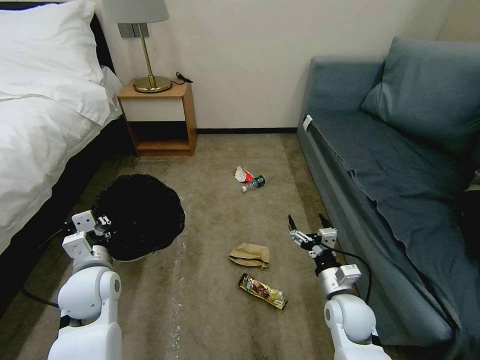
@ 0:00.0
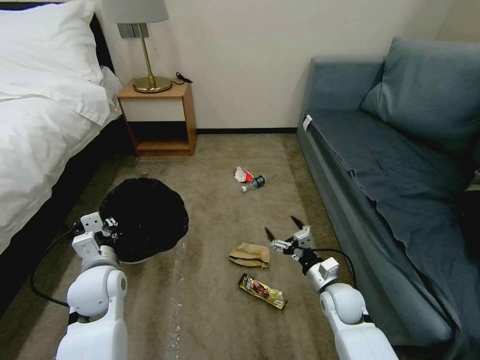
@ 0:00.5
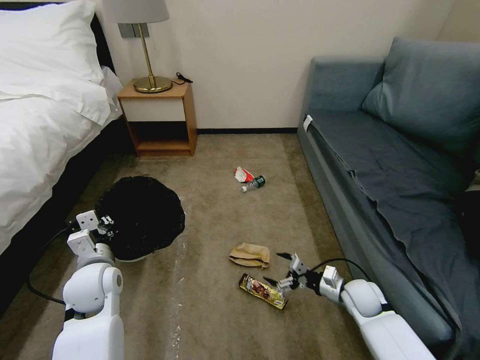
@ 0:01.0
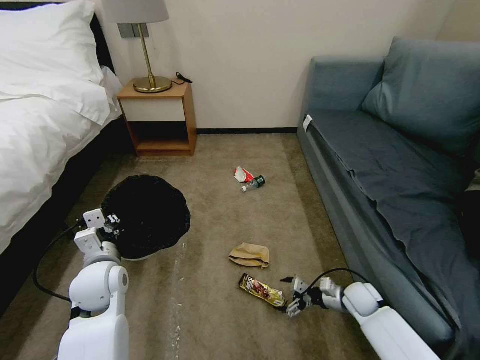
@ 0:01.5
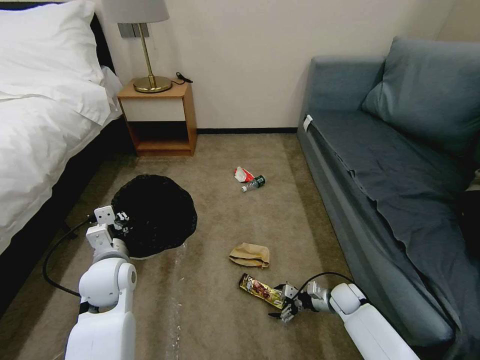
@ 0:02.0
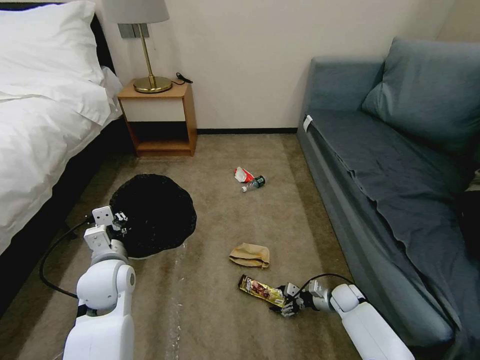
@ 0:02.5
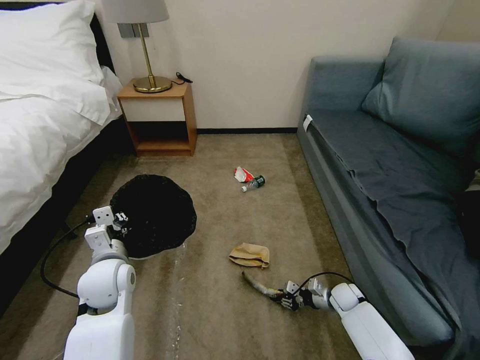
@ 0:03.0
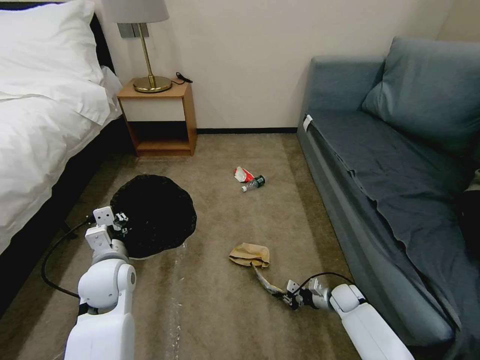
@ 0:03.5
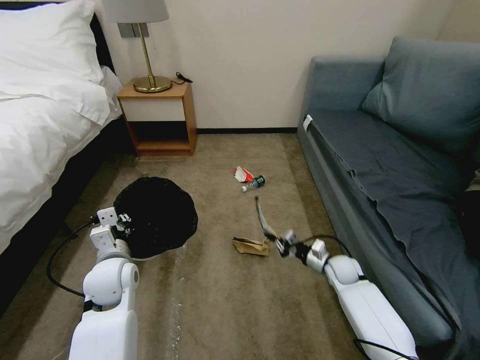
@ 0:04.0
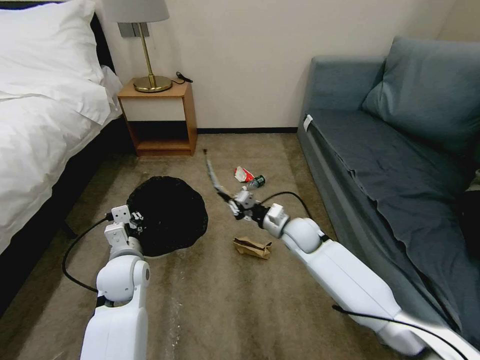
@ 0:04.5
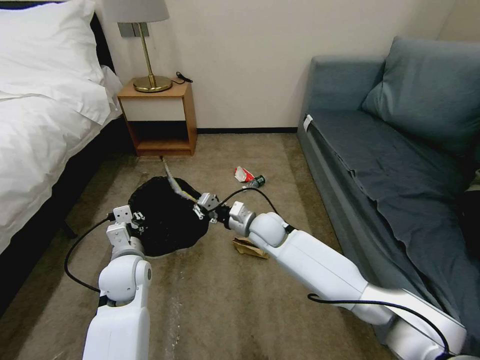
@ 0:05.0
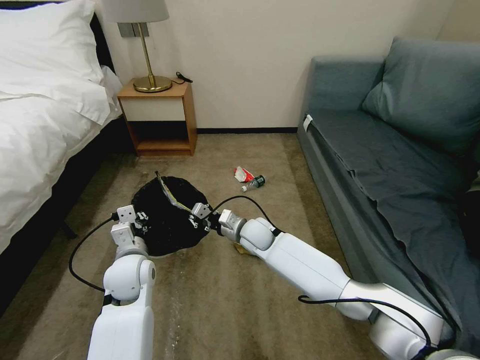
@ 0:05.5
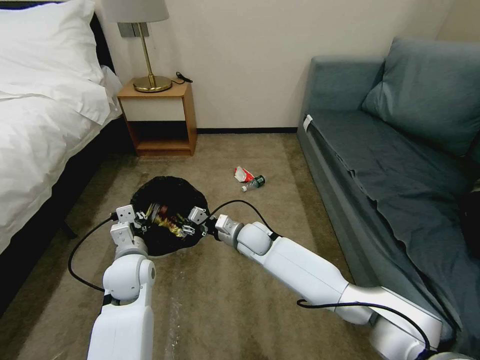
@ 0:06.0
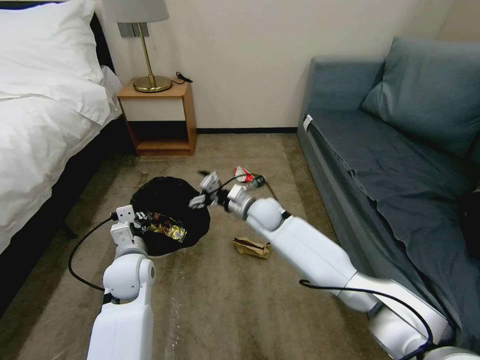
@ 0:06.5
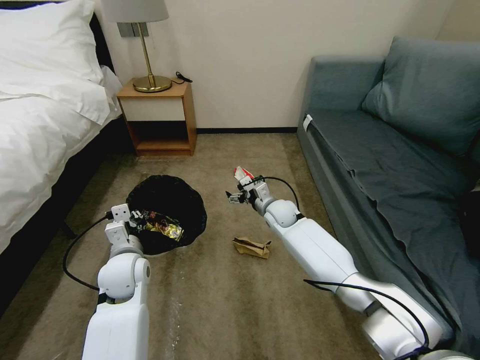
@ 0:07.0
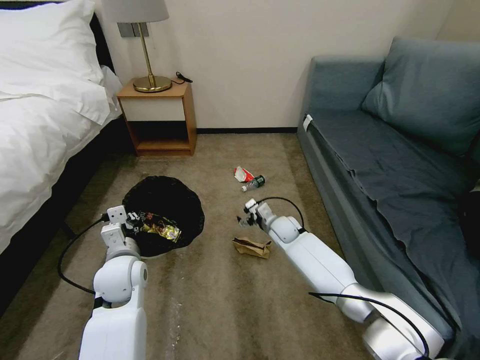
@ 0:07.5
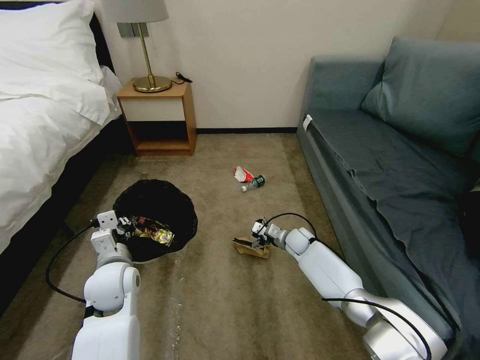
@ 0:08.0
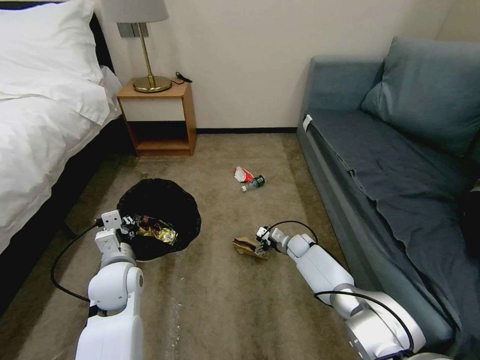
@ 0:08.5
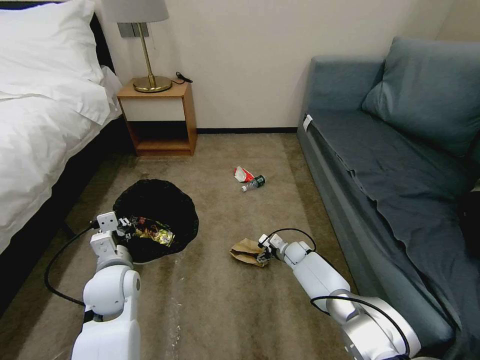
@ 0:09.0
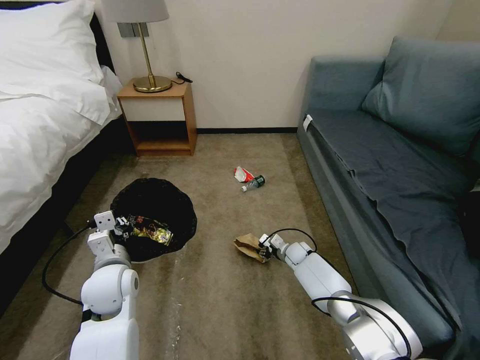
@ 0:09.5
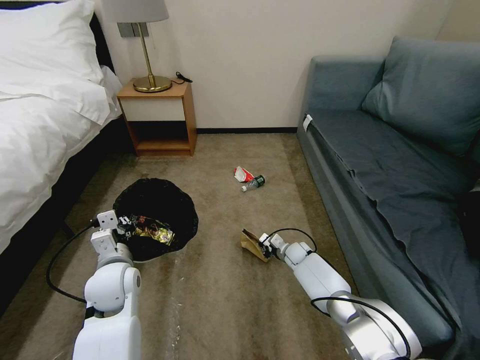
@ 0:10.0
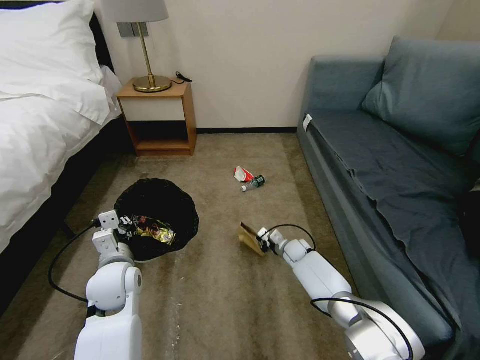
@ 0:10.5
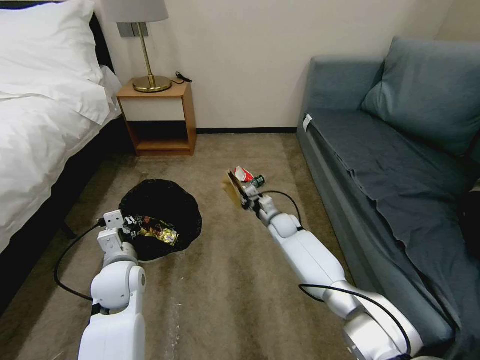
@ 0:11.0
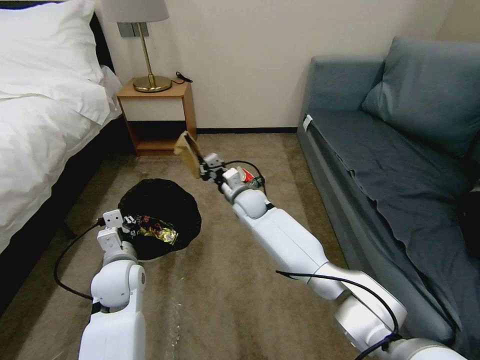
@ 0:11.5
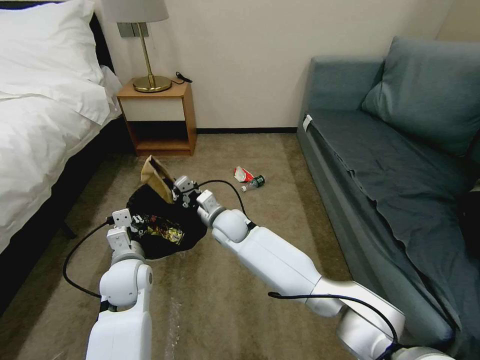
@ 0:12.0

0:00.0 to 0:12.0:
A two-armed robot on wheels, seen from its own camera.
Task of the whole recording: Pick up the trash bin, then pick up the garbage on the floor and place it into the trash bin.
0:00.0 to 0:02.0: The right gripper shifts some 20 cm downward, forward and to the right.
0:02.0 to 0:04.0: The right gripper heads upward and forward, covering roughly 10 cm, and closes up.
0:04.0 to 0:06.0: The right gripper goes roughly 25 cm to the left, and opens.
0:06.0 to 0:08.0: The right gripper travels to the right and downward by some 20 cm, and opens its fingers.
0:08.0 to 0:10.0: The right gripper heads downward, covering roughly 5 cm, and closes its fingers.
0:10.0 to 0:12.0: The right gripper travels to the left and upward by roughly 30 cm.

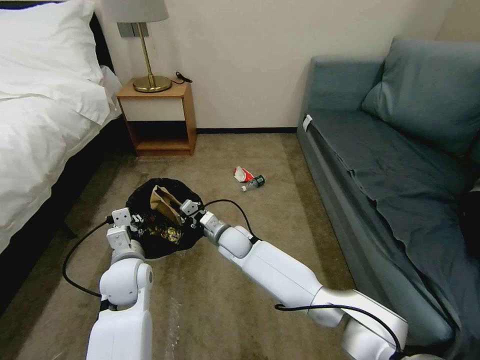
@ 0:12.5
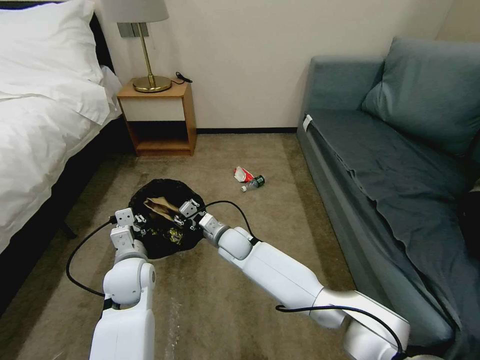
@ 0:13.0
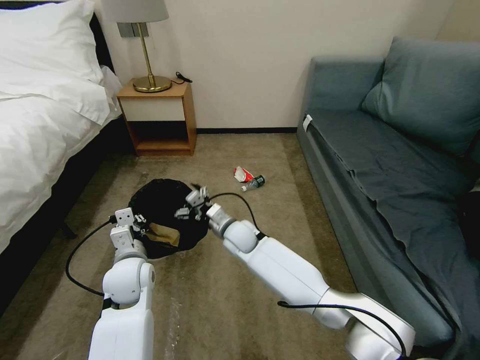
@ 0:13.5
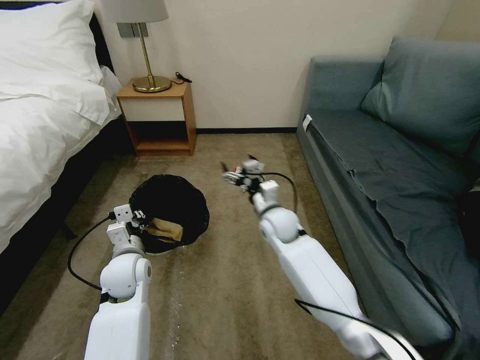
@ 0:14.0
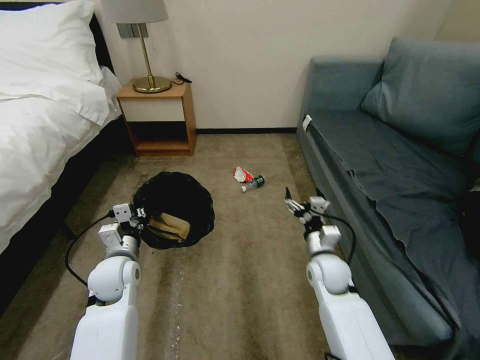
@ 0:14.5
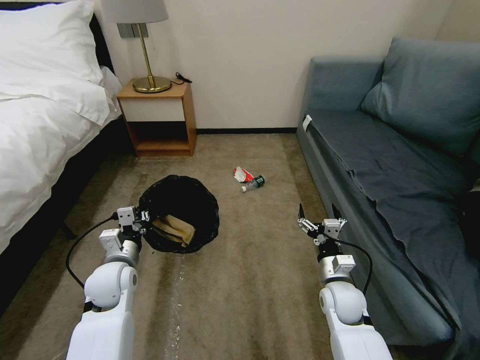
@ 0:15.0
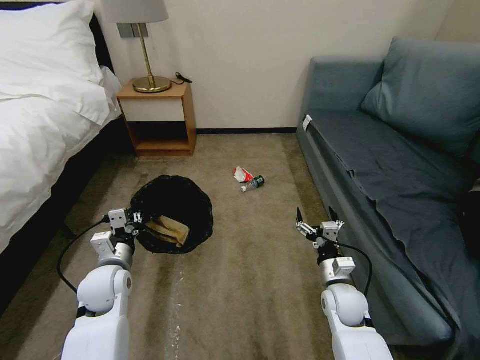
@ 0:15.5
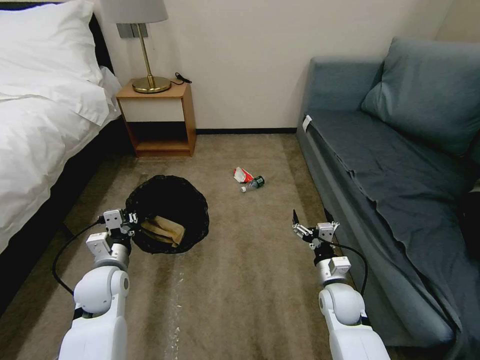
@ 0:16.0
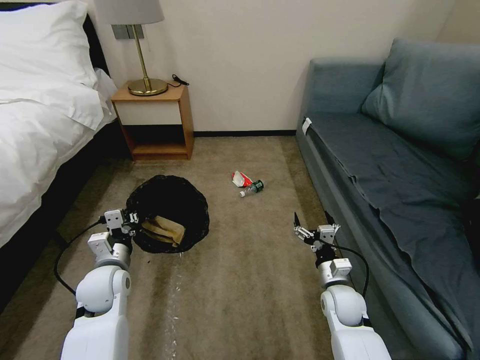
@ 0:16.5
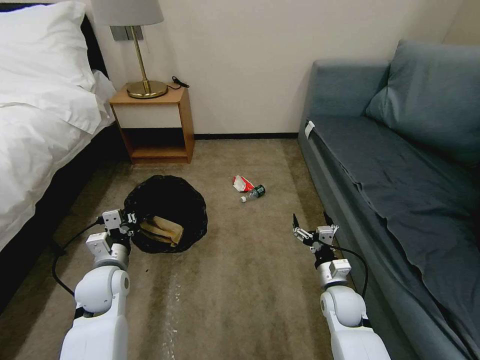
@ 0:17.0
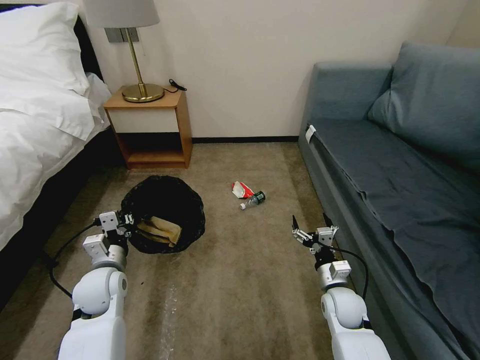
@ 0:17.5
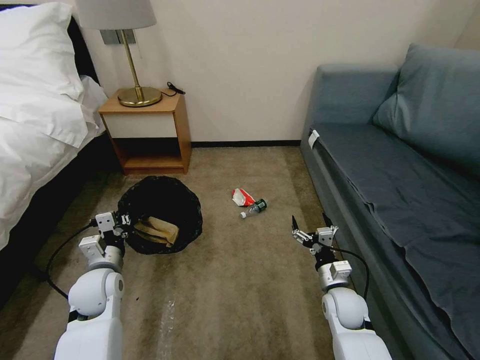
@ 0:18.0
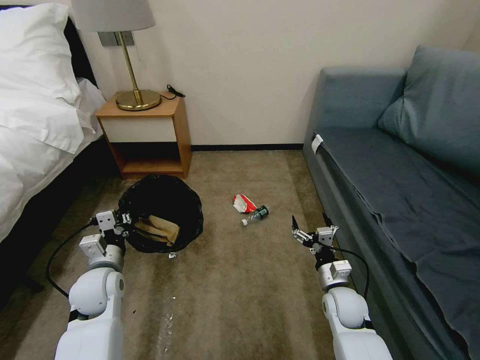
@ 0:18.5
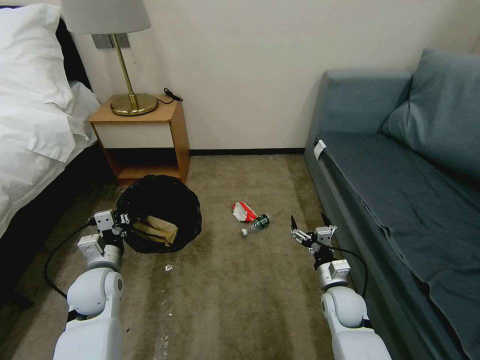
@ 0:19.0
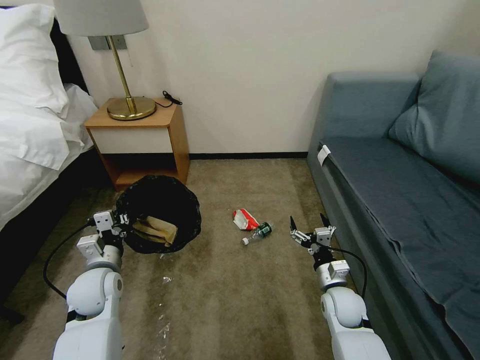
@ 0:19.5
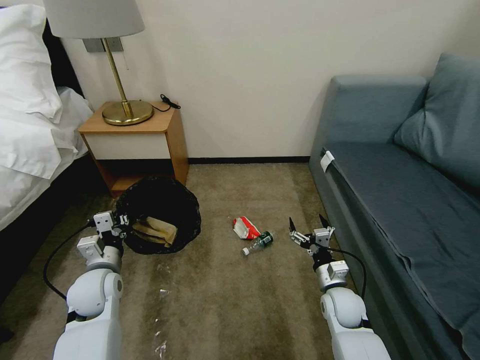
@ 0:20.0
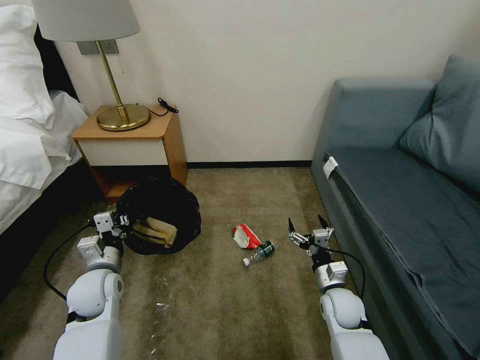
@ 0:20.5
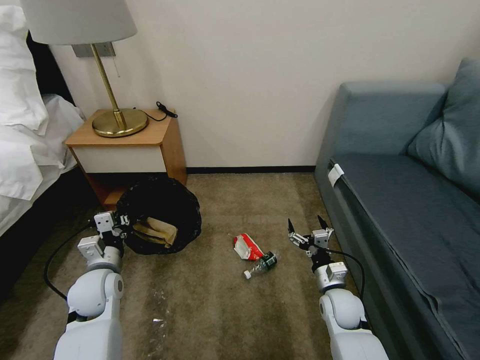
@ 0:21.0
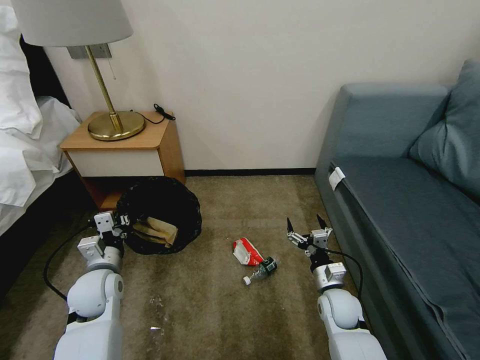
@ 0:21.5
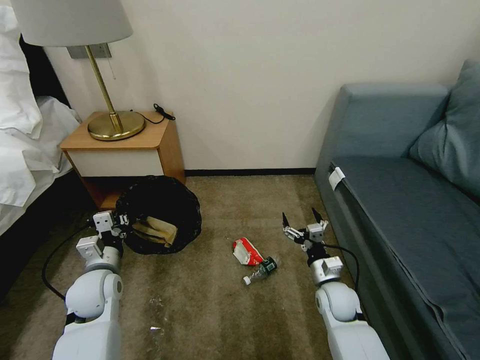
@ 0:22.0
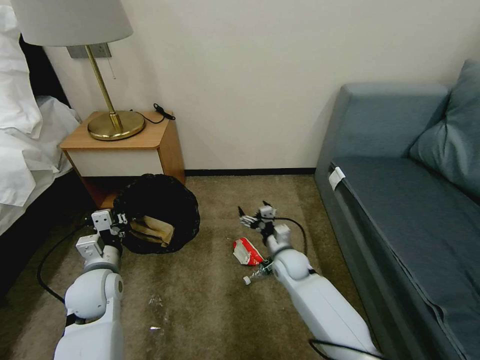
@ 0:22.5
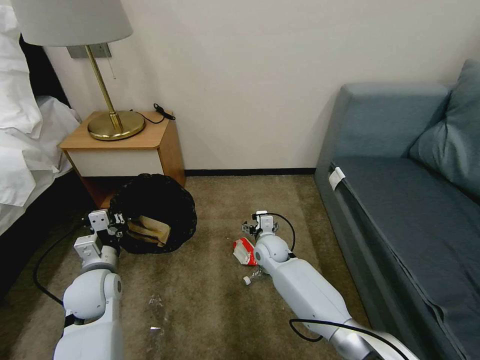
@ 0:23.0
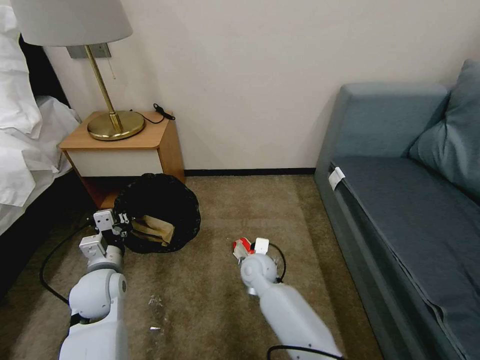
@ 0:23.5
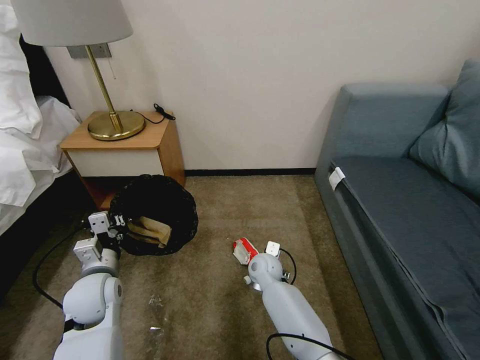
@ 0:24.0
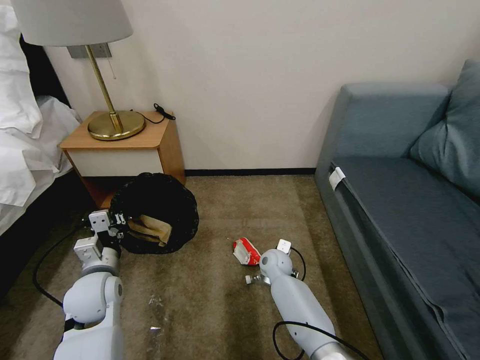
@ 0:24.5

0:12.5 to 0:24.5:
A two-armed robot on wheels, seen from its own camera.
Task of the whole recording: Pick up the trash bin, then pick up the garbage on the floor and place it into the trash bin.
0:12.5 to 0:14.5: The right gripper goes some 25 cm to the right and backward, and opens up.
0:14.5 to 0:16.5: The right gripper moves some 5 cm.
0:20.5 to 0:22.5: The right gripper is displaced to the left and forward by about 15 cm.
0:22.5 to 0:24.5: The right gripper goes to the left and returns, about 10 cm each way.

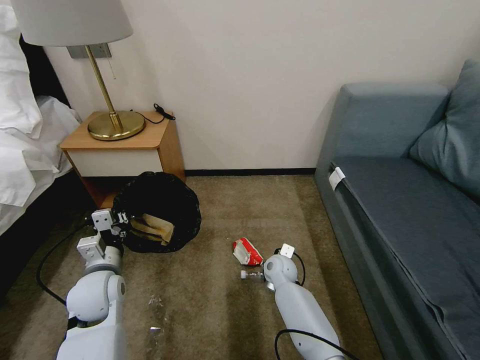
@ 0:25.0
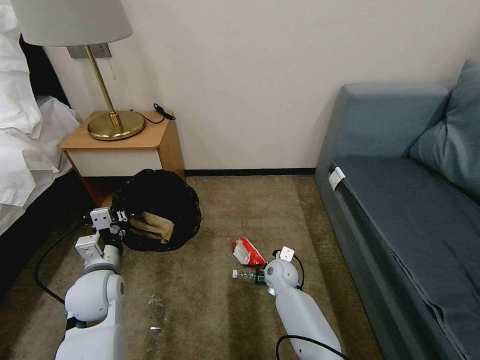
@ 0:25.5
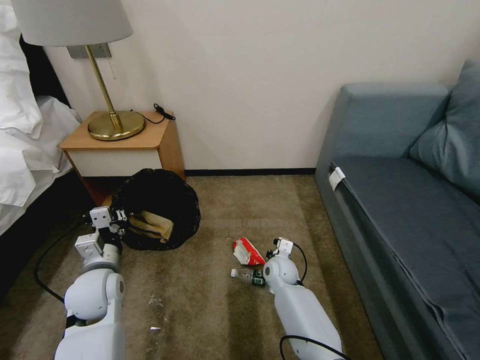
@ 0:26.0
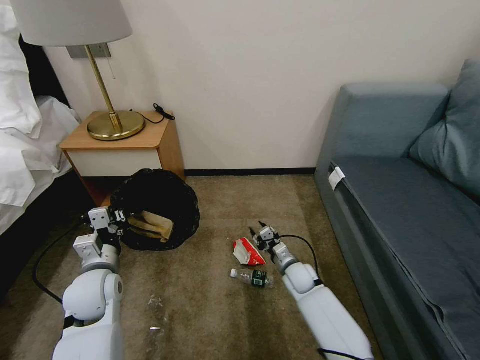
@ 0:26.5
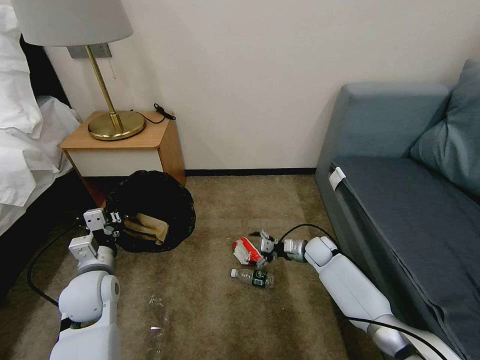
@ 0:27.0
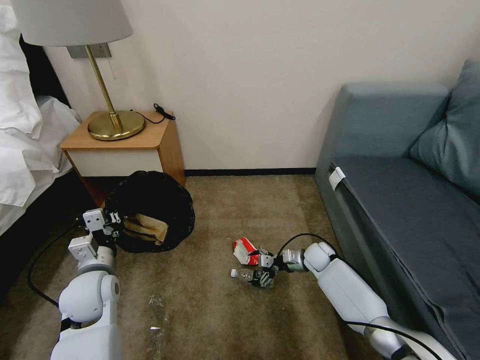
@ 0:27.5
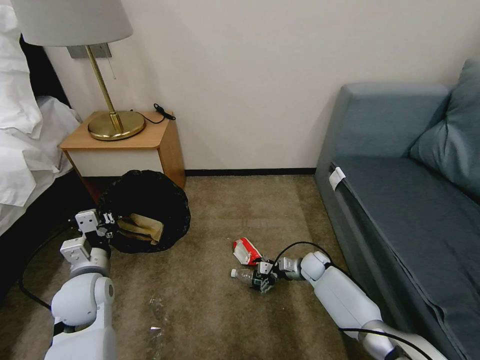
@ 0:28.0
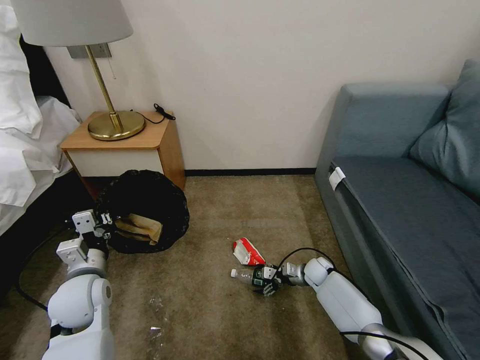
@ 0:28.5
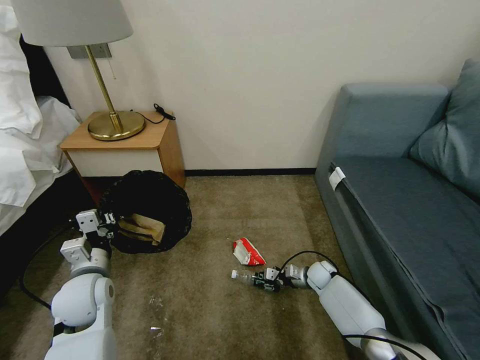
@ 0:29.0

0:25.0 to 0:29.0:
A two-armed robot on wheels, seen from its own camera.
Task of the whole recording: Pick up the trash bin, then pick up the garbage on the floor and place it into the trash bin.
0:25.0 to 0:27.0: The right gripper is displaced to the right and forward by approximately 15 cm, and closes, then opens again.
0:27.0 to 0:29.0: The right gripper is displaced downward by some 10 cm, and closes.
